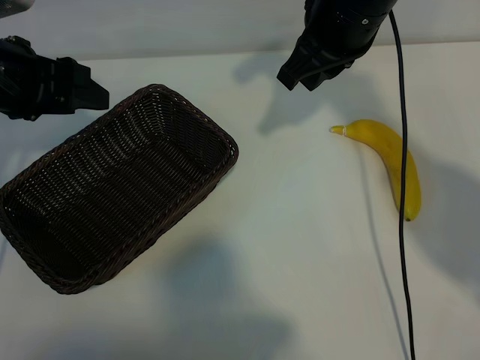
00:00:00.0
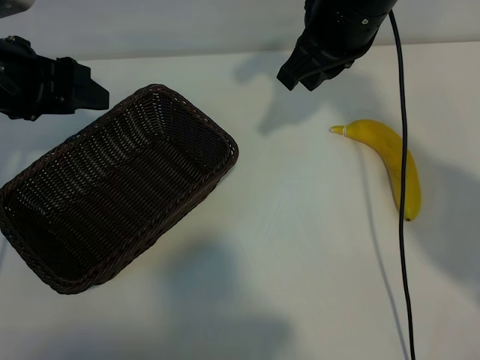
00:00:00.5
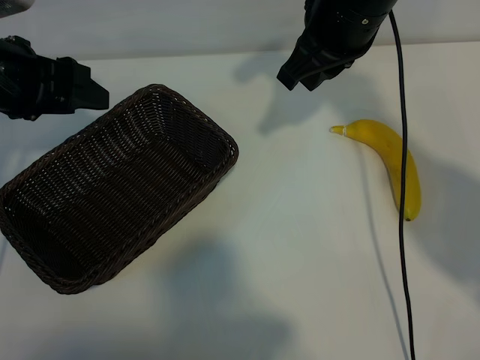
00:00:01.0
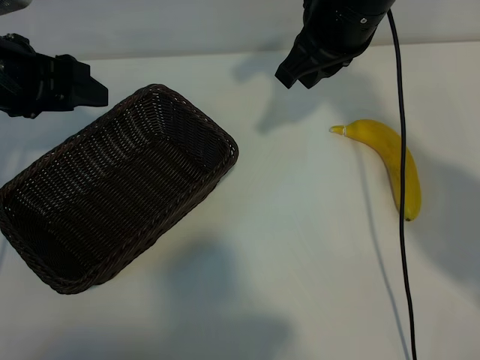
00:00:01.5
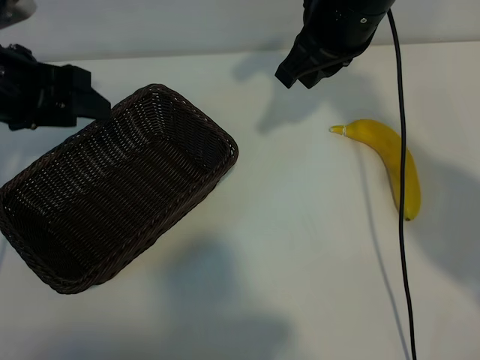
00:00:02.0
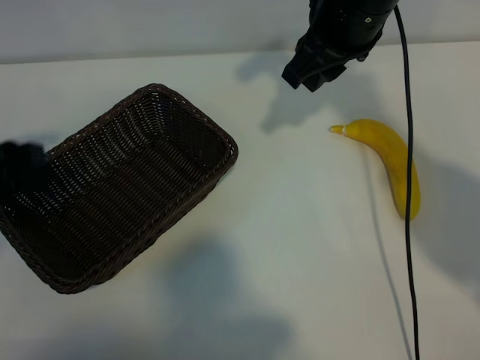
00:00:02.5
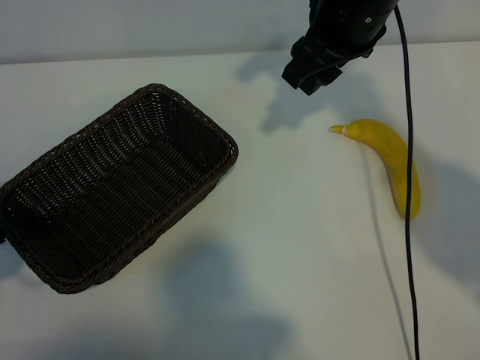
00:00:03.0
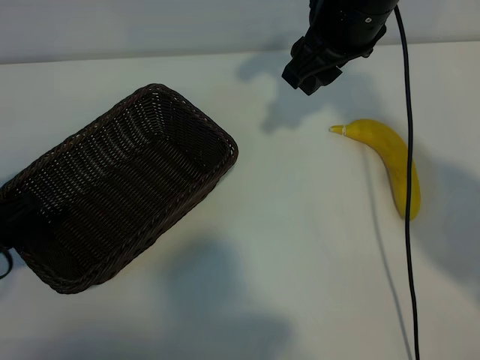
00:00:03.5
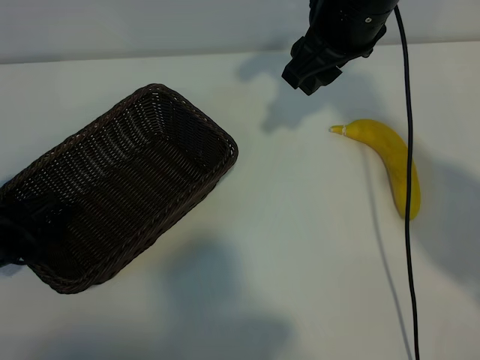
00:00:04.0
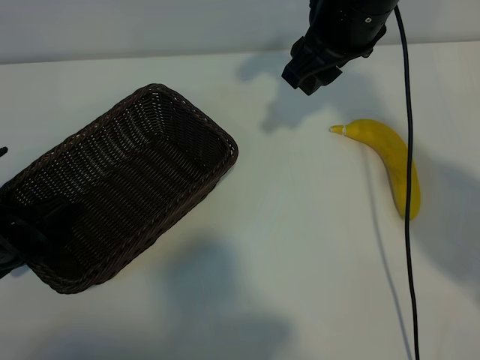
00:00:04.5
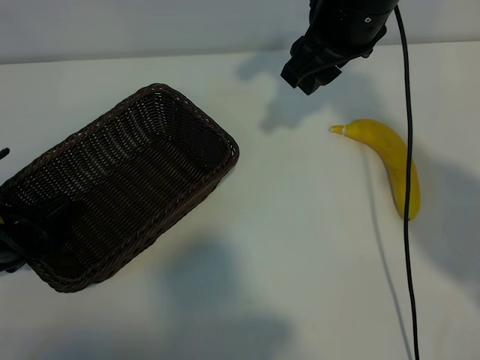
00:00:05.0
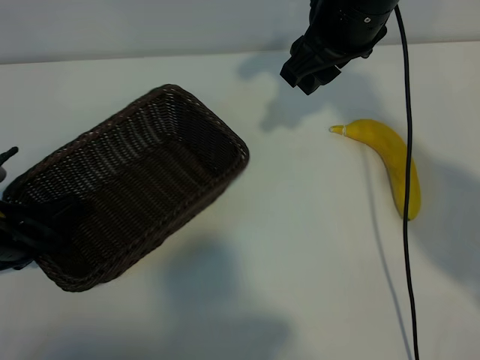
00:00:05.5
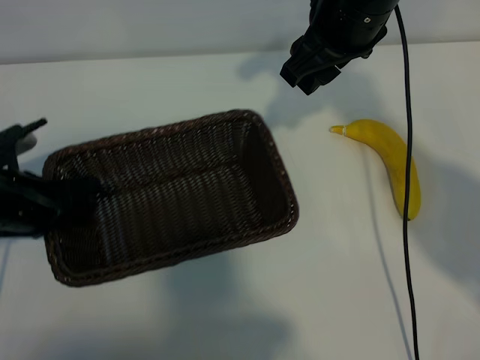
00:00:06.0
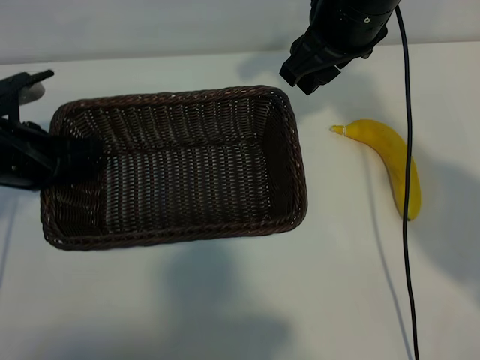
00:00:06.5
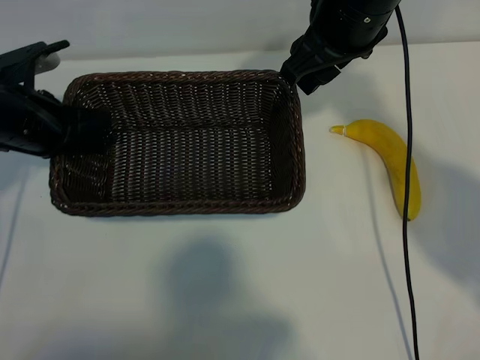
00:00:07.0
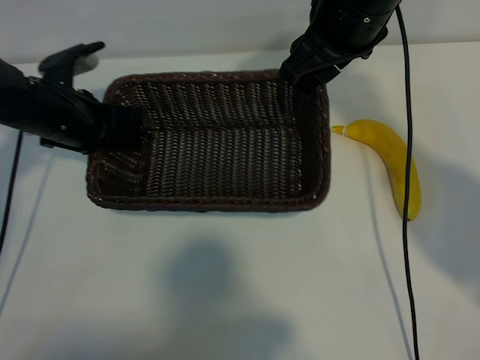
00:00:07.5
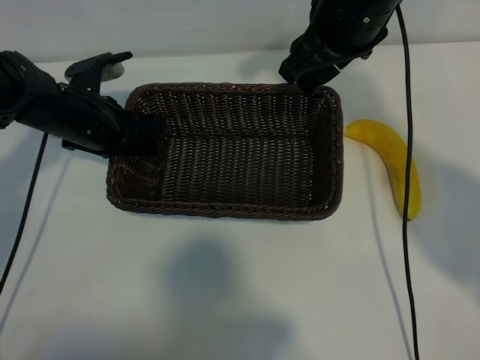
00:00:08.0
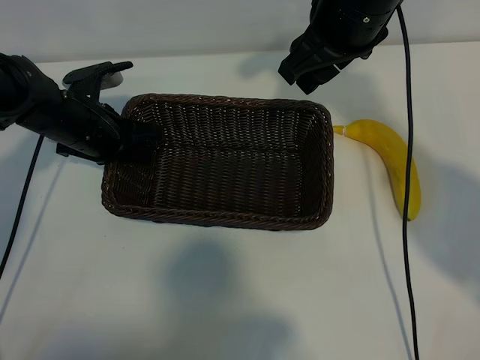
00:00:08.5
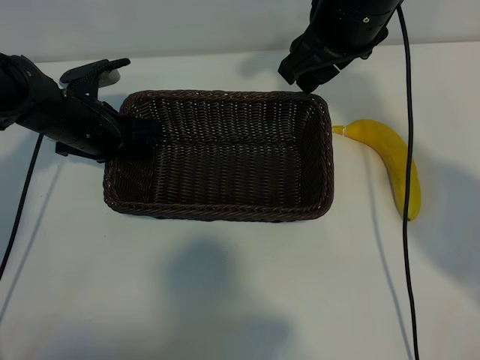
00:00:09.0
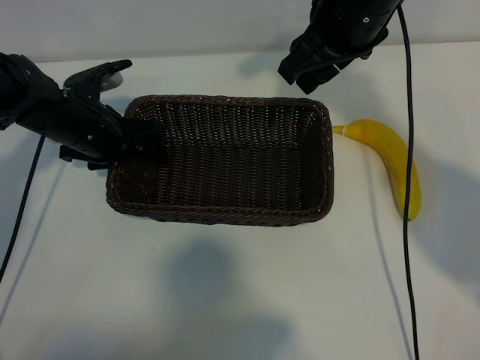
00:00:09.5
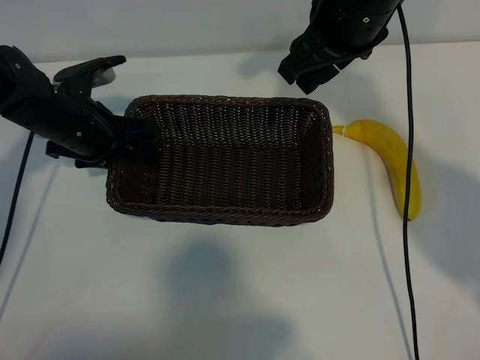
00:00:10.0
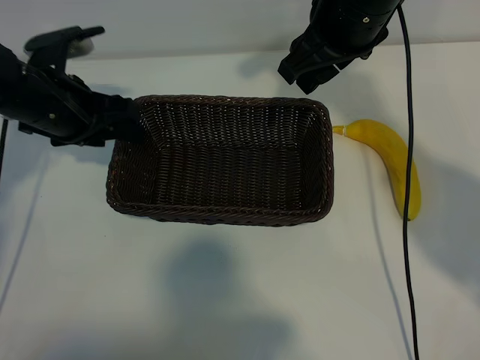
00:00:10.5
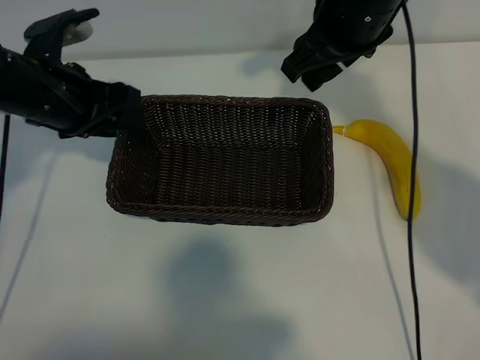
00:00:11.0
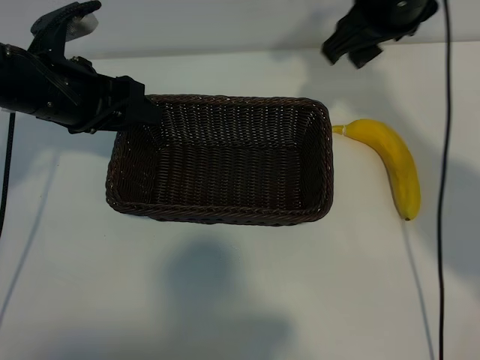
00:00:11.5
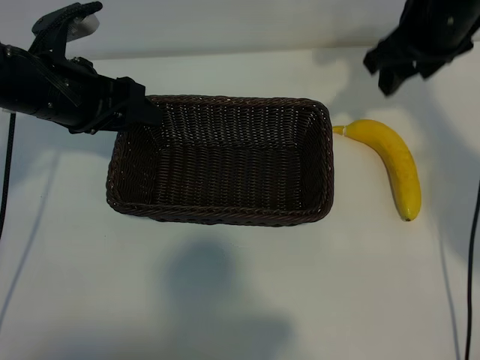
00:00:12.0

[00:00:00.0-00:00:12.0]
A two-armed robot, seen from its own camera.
Task of the whole recording: pick up the banana and put it into the basket.
Step, 00:00:01.0 to 00:00:05.0: Grasp the basket with the left gripper.
Step, 00:00:05.5 to 00:00:10.0: Place the basket in the center of the table with the left gripper.

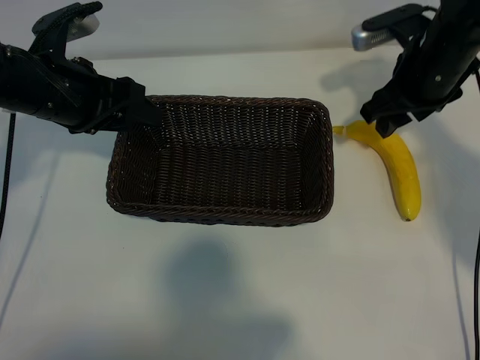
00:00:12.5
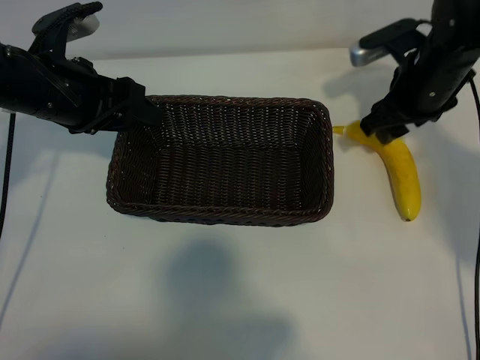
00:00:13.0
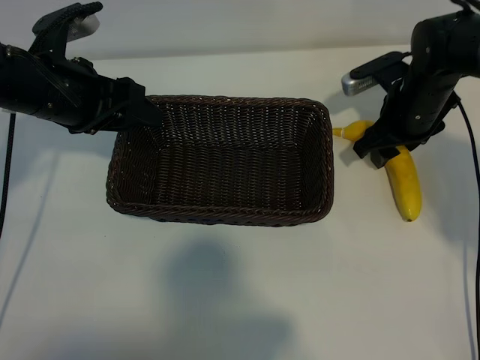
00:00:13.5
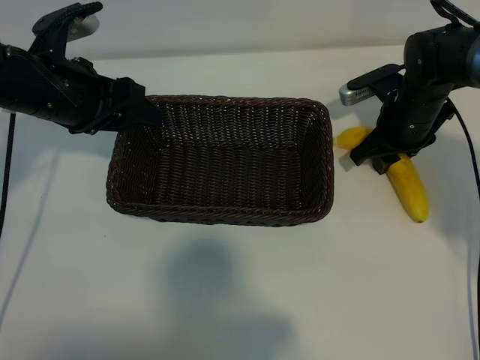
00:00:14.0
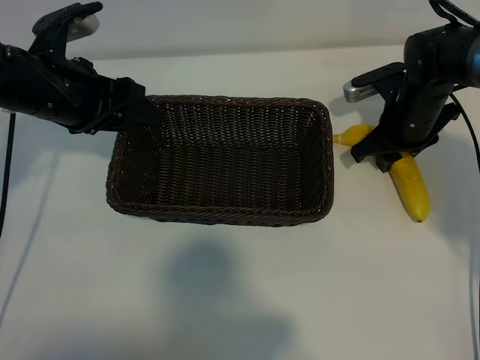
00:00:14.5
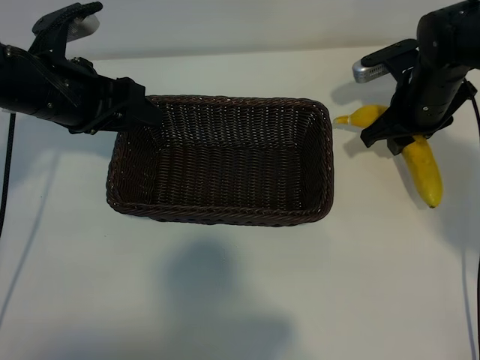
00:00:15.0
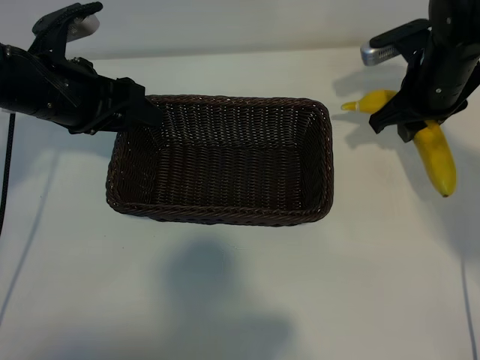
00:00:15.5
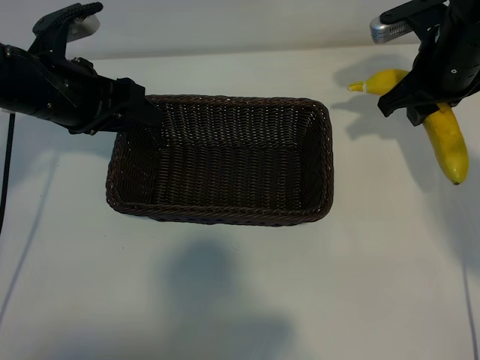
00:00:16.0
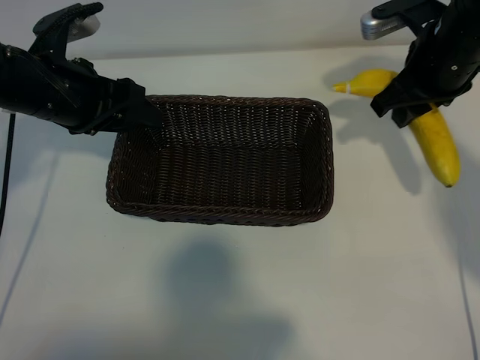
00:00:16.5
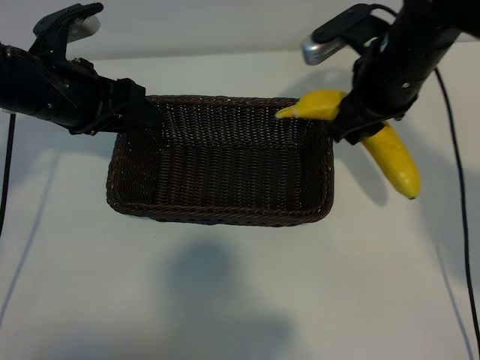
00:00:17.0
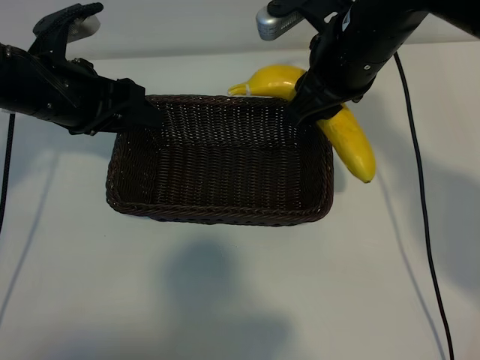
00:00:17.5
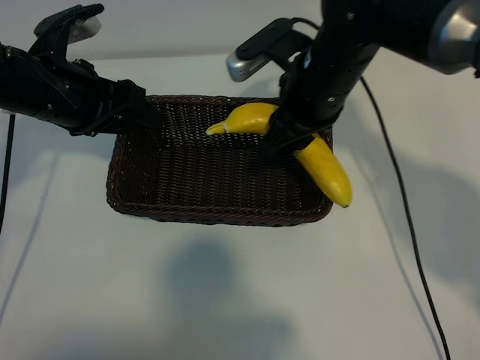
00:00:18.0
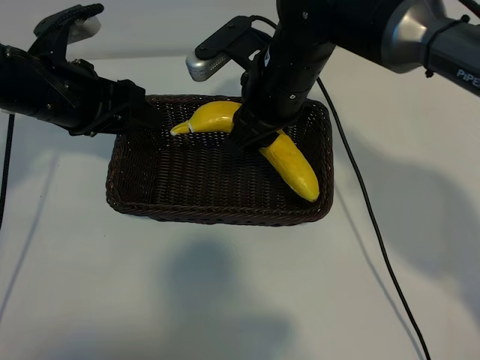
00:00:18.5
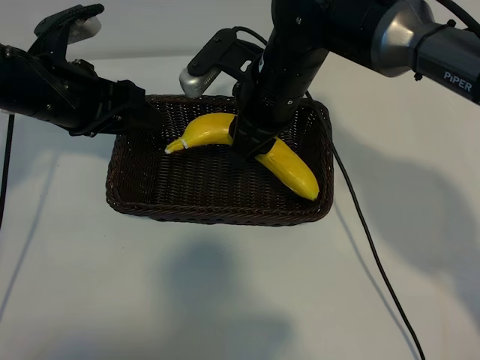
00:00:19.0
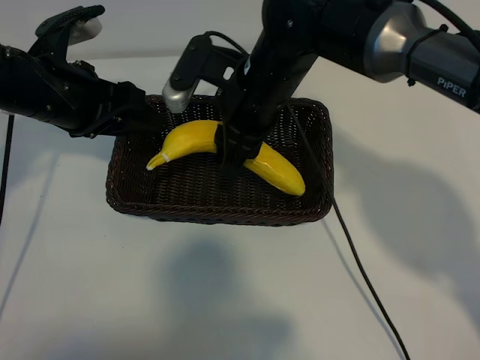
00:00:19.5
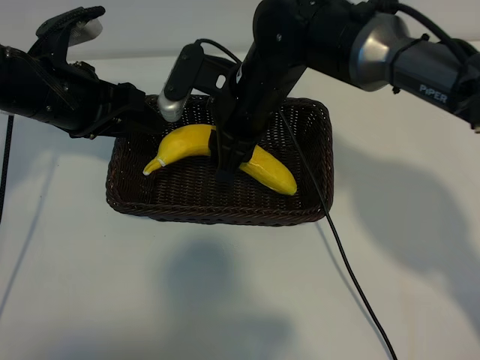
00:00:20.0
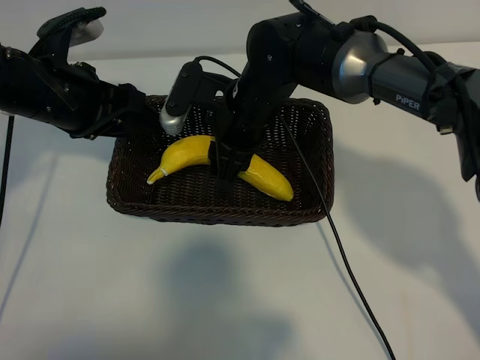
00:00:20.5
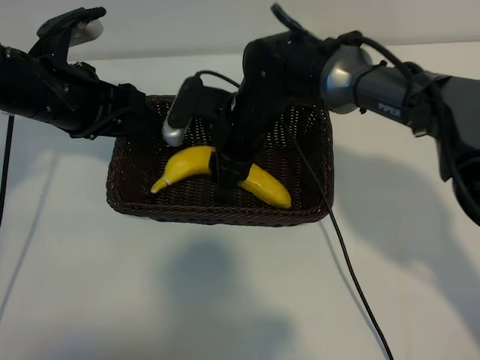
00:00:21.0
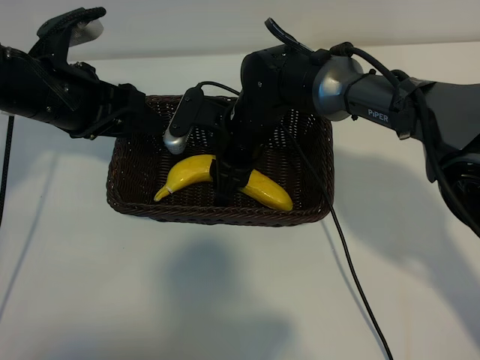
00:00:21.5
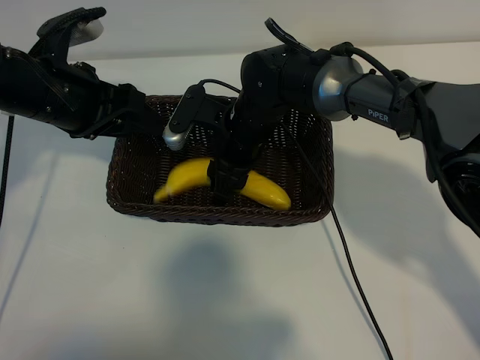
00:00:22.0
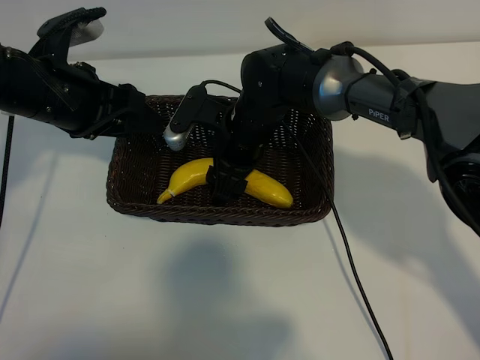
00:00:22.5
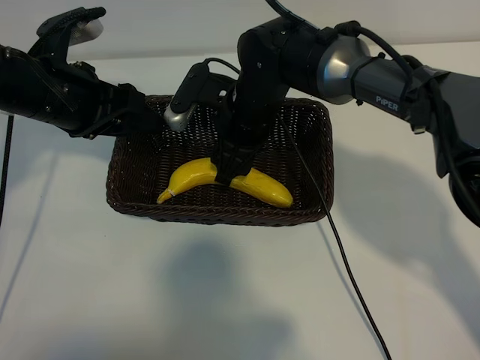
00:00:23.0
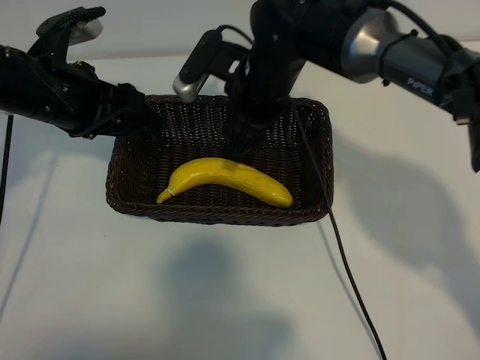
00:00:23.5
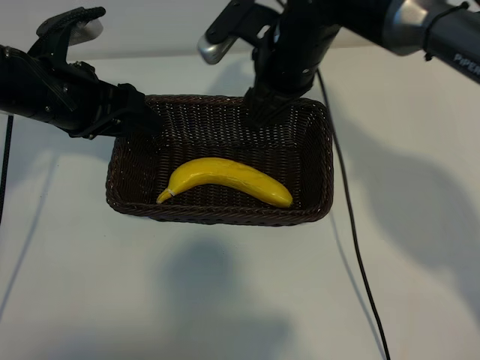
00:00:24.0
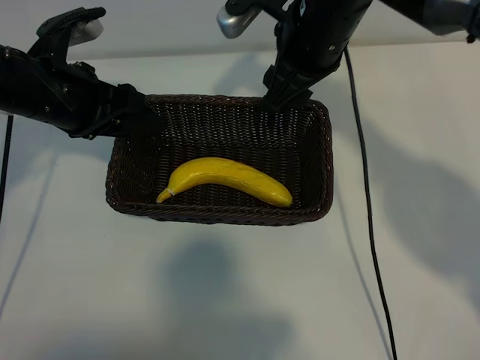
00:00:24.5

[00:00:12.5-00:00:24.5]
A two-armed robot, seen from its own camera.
Task of the whole recording: pick up the banana and put it into the basket.
Step, 00:00:14.5 to 00:00:23.0: Place the banana in the basket with right gripper.
